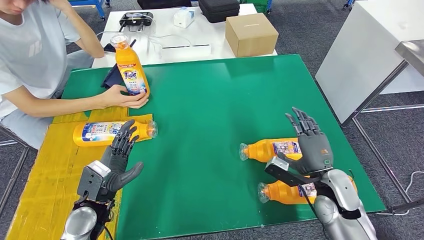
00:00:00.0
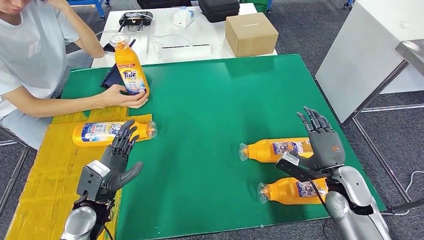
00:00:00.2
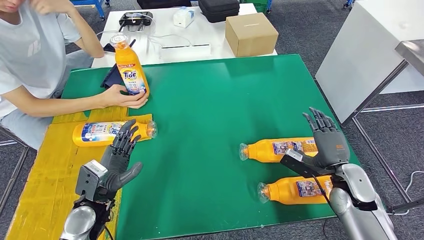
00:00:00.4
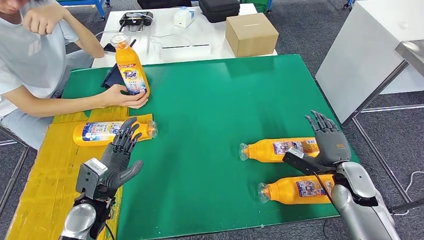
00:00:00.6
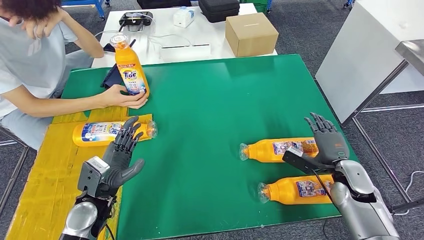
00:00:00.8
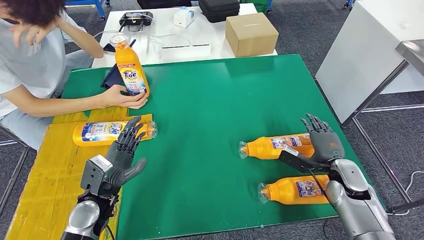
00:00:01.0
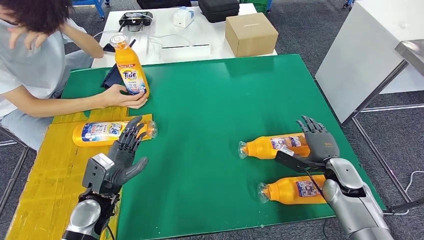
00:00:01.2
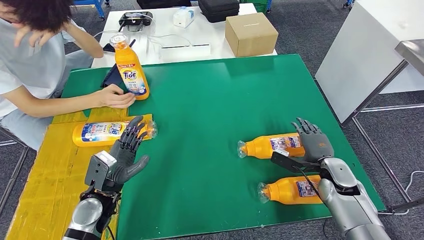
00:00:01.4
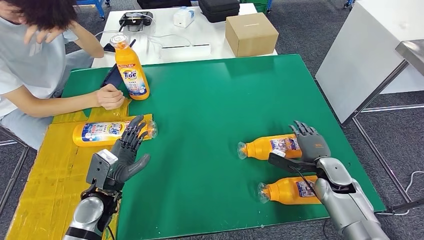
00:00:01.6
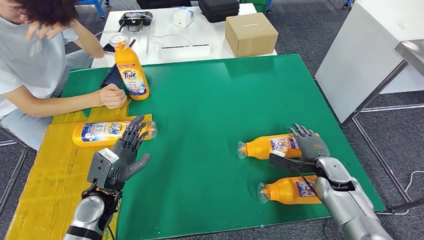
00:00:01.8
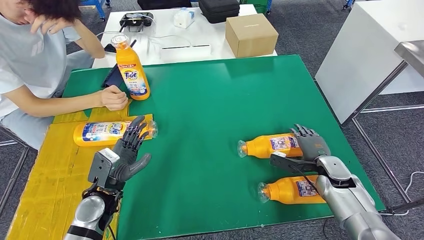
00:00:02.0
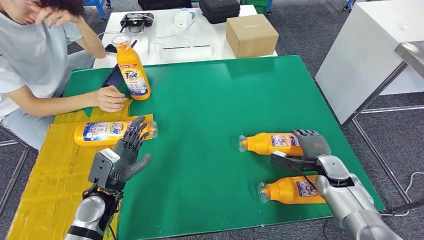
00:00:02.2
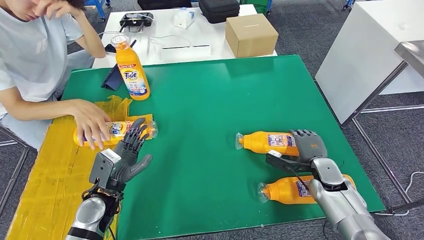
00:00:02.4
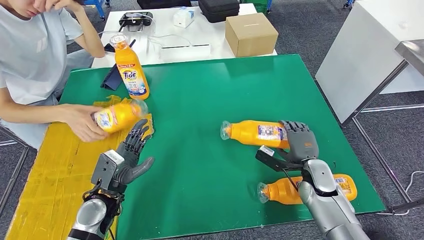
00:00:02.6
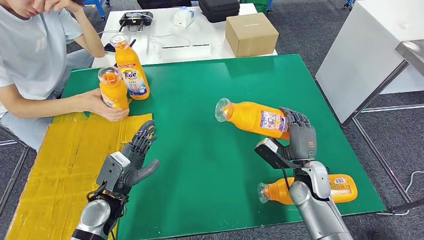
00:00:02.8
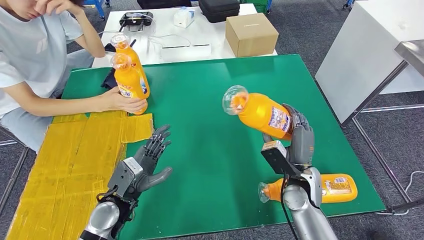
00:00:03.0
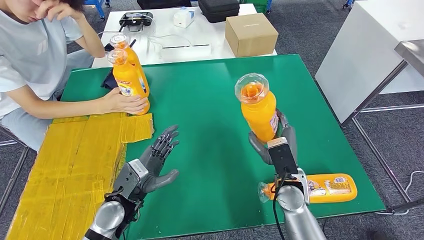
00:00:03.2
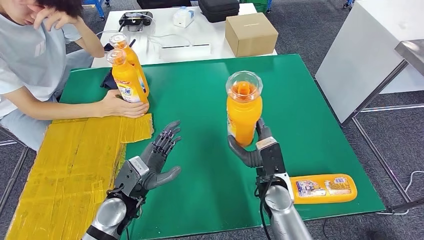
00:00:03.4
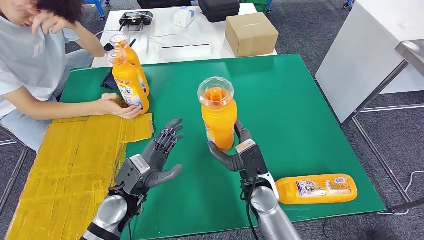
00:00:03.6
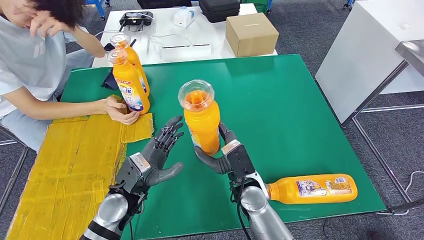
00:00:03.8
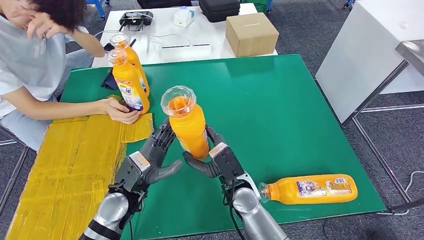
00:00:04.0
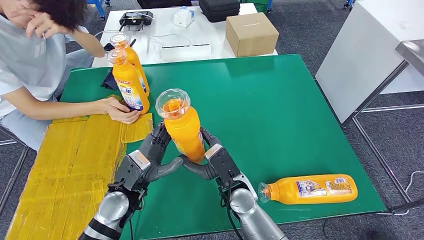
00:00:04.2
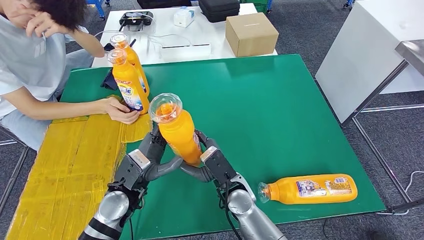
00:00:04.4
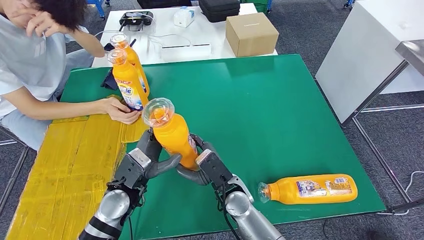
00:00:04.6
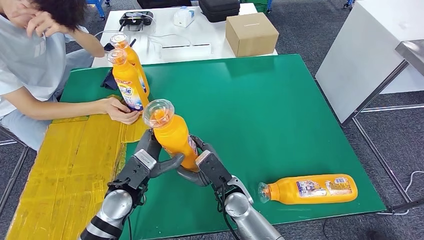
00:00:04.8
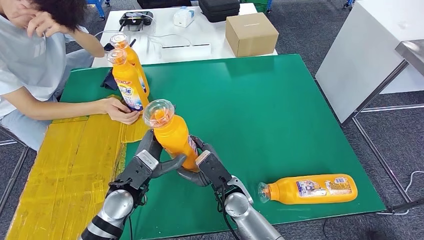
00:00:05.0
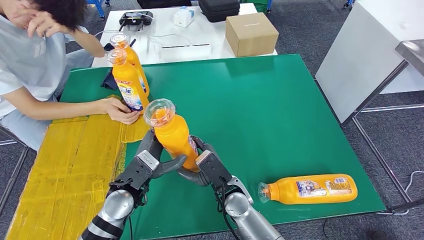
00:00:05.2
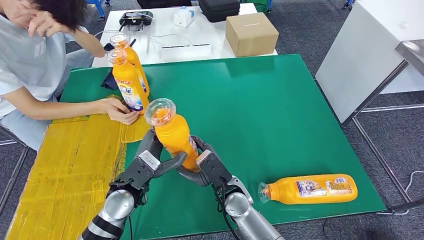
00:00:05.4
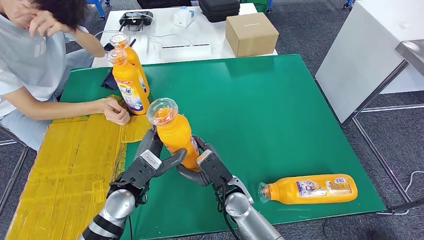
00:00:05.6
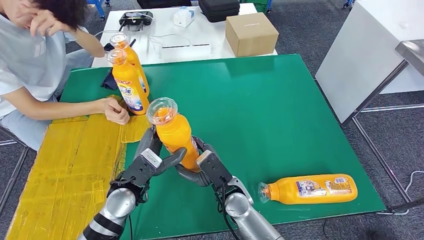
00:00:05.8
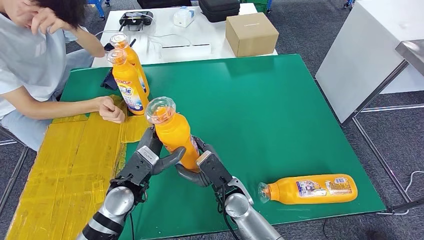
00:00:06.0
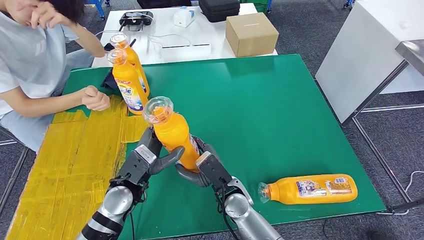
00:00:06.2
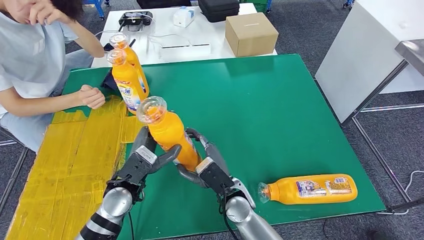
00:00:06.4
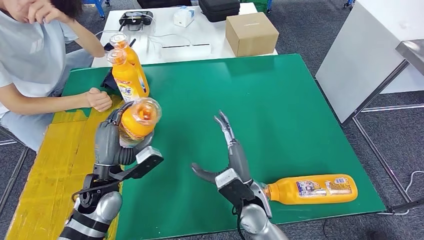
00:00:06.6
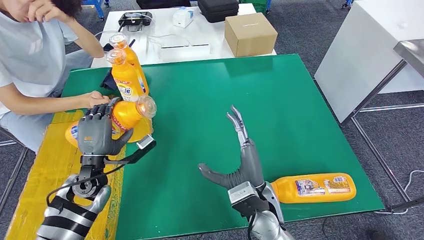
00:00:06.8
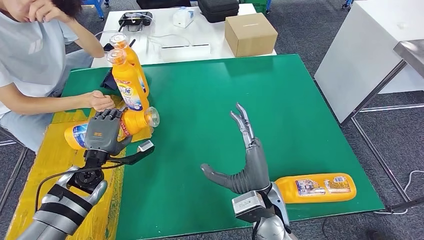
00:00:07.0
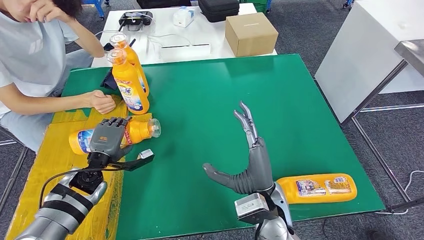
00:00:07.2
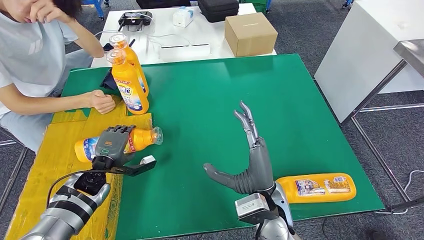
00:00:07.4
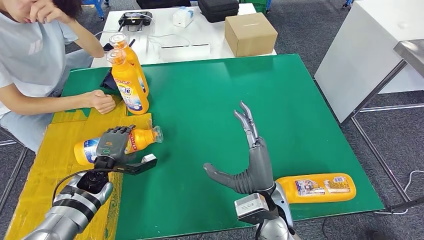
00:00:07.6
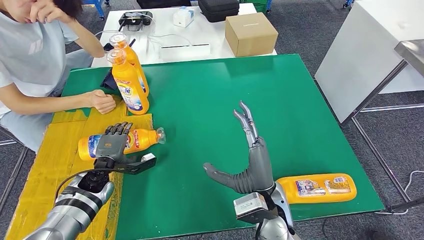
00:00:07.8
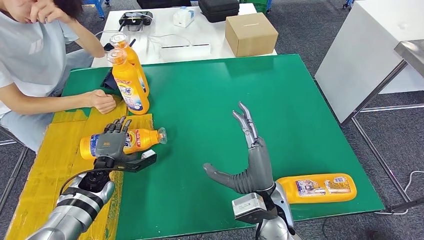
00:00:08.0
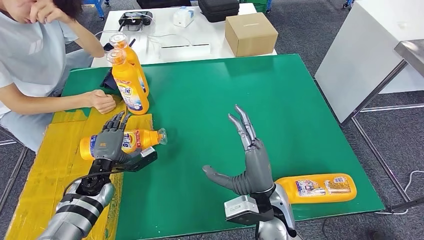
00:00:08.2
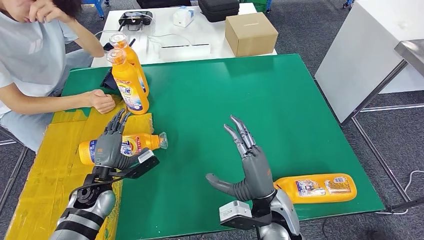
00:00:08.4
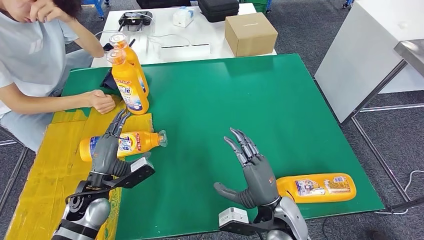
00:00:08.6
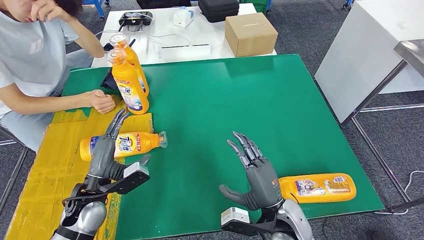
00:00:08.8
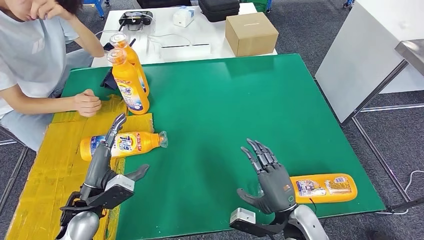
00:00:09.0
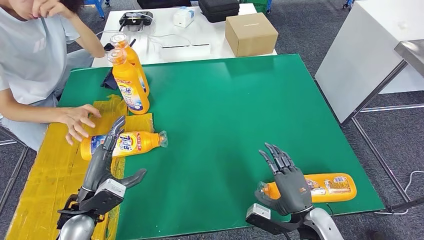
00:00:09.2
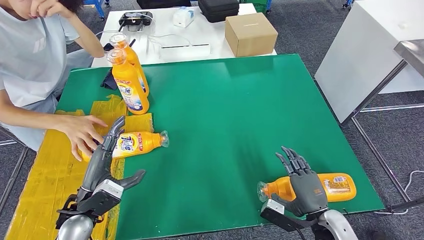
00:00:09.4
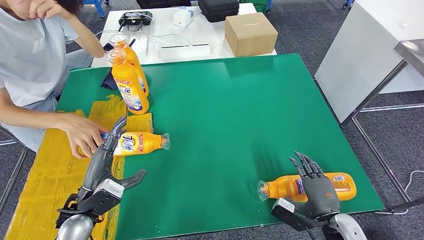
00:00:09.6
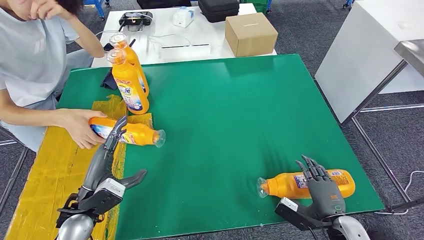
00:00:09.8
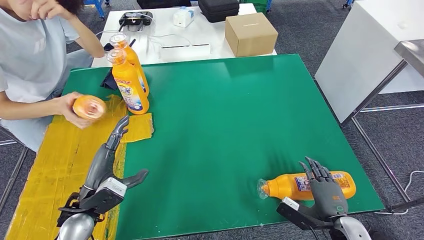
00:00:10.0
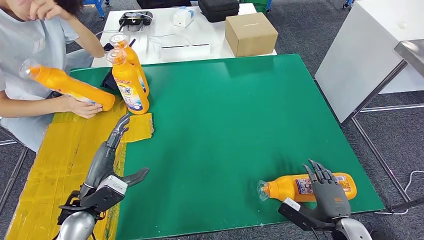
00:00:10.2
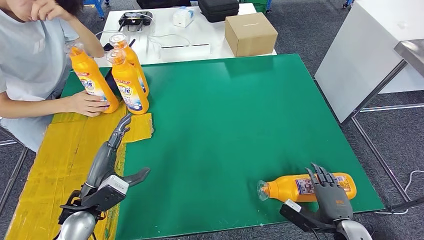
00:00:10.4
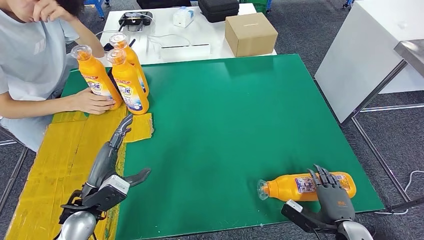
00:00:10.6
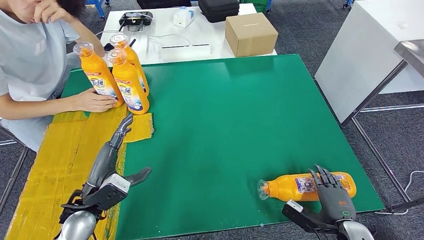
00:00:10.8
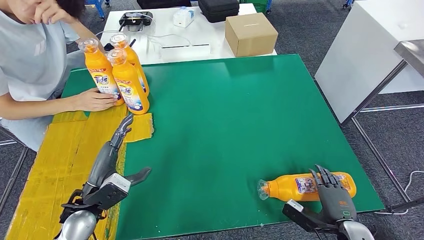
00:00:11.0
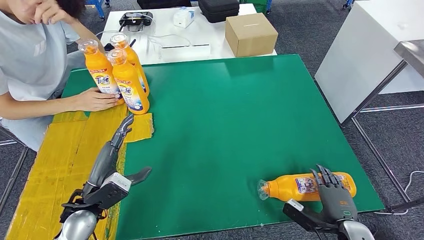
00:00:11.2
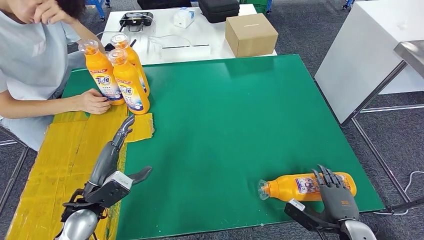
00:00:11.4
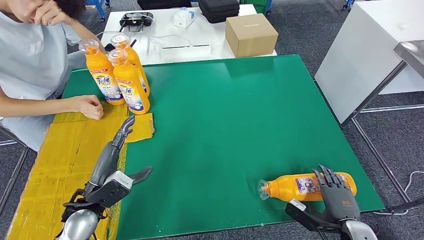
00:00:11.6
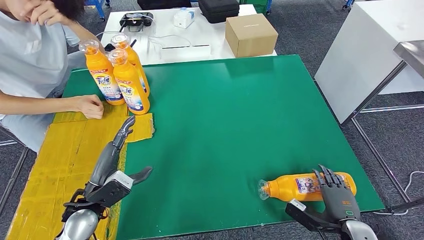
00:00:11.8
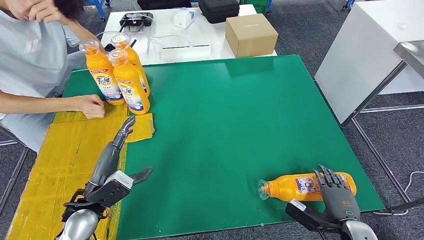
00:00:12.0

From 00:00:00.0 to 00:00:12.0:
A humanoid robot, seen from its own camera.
Step, from 00:00:02.0 to 00:00:03.4: Pick up the fast-moving consumer goods bottle from the table.
Step, from 00:00:04.2 to 00:00:07.4: Flip the fast-moving consumer goods bottle to the front side.
From 00:00:00.0 to 00:00:01.6: The right hand heads forward and downward, covering approximately 10 cm.
From 00:00:04.4 to 00:00:06.0: The hands stay close to where they were, moving slightly.
From 00:00:07.6 to 00:00:09.0: The right hand moves to the right and downward, approximately 10 cm. Meanwhile the left hand goes some 10 cm backward and upward.
From 00:00:09.0 to 00:00:10.4: The right hand goes approximately 15 cm to the right and downward.
From 00:00:10.4 to 00:00:12.0: There are only small adjustments of the hands.

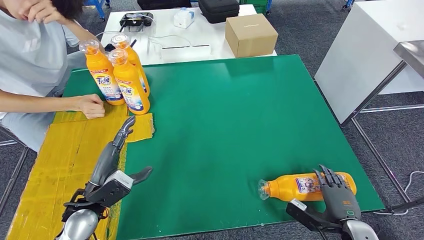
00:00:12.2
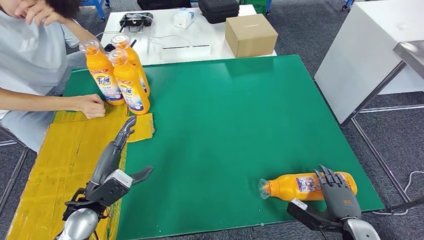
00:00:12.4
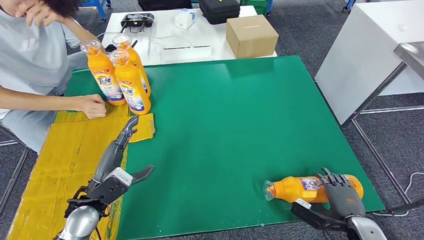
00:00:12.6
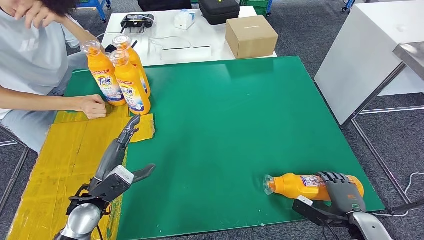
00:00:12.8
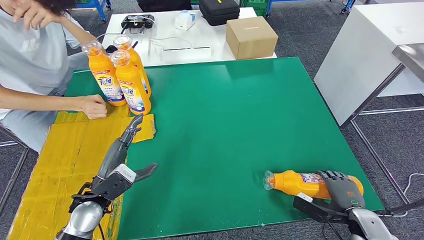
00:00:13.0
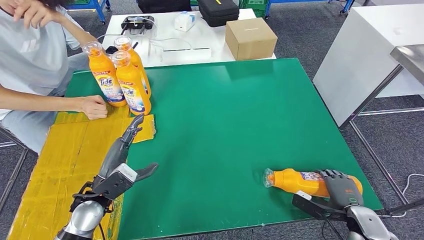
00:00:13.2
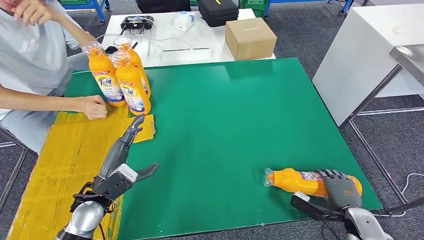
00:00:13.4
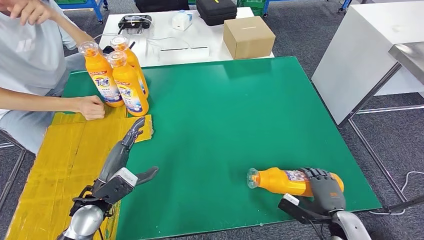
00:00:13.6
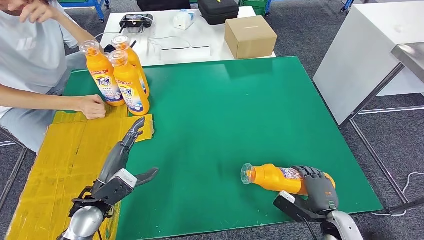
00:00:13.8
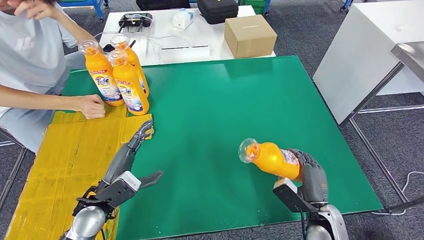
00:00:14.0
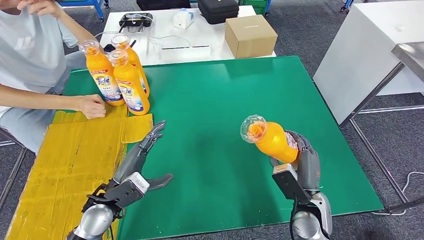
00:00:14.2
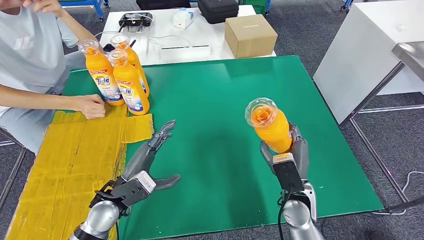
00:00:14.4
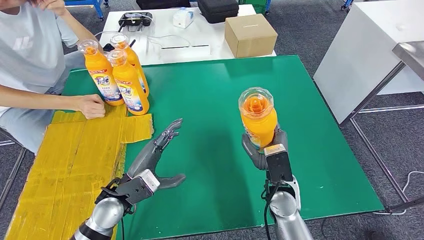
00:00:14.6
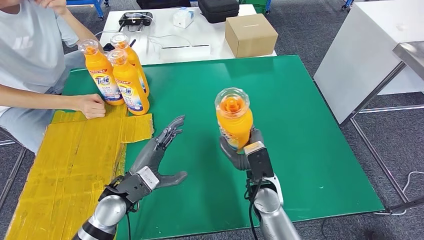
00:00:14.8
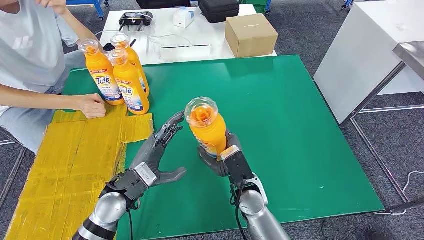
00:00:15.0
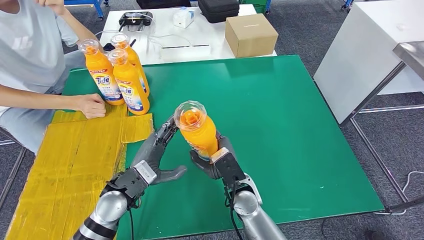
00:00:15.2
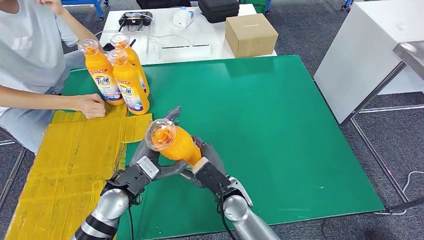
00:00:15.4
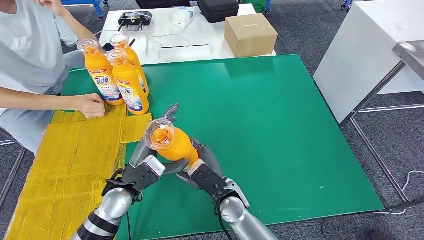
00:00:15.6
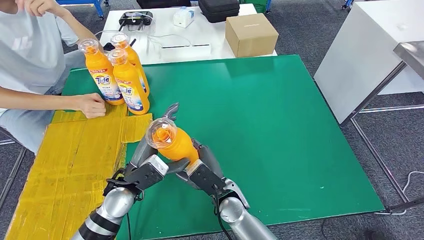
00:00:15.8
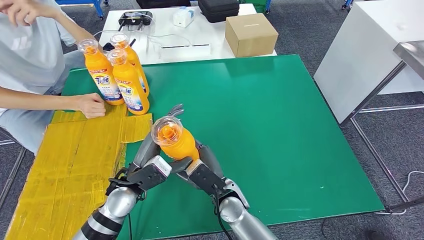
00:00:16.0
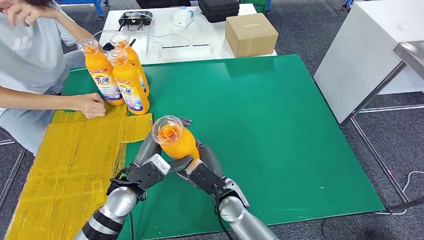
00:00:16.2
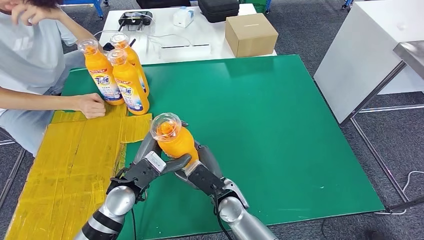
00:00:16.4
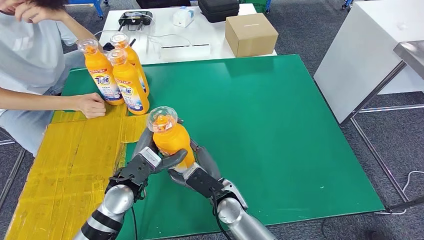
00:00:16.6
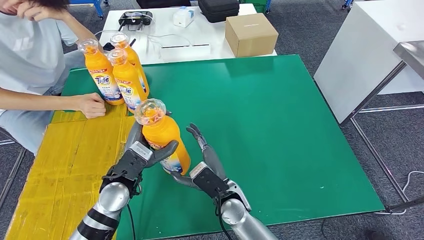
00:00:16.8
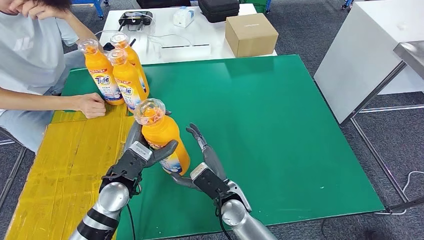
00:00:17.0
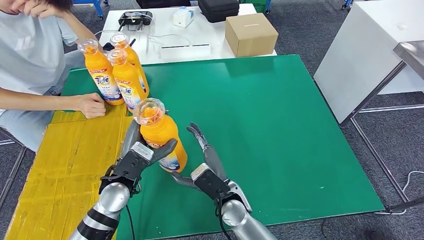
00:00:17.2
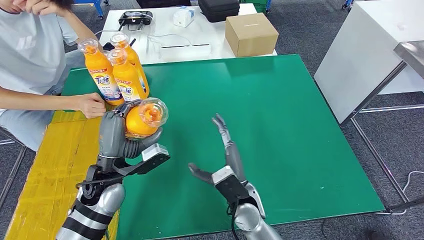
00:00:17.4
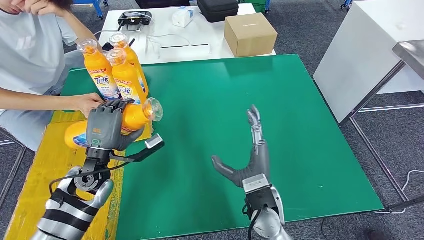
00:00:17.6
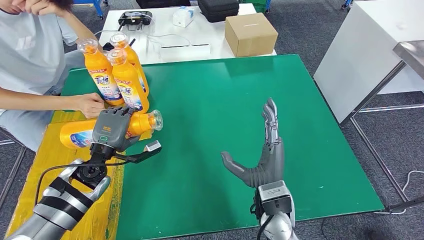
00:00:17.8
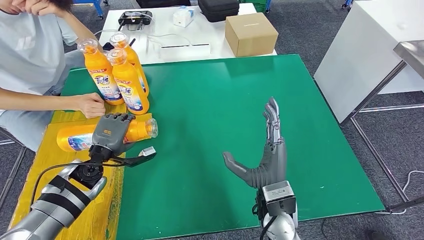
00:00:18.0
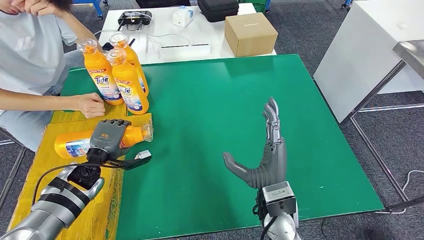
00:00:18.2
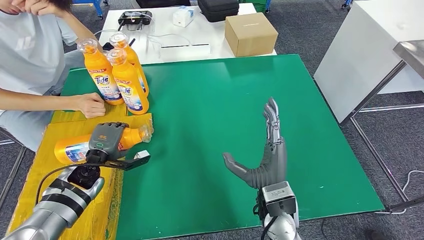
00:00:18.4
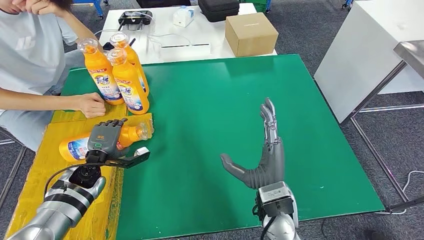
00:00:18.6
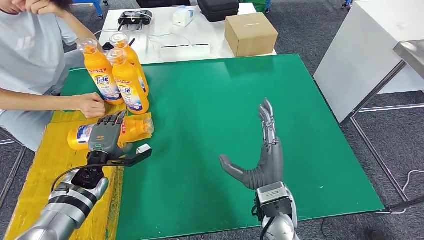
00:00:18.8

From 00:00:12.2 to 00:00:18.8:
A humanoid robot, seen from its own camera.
Step, from 00:00:12.2 to 00:00:14.6: Pick up the fast-moving consumer goods bottle from the table.
From 00:00:15.4 to 00:00:17.2: The hands make only small movements.
From 00:00:17.2 to 00:00:18.8: The left hand shifts roughly 15 cm to the left, downward and forward. The right hand travels to the right and upward by some 10 cm.
